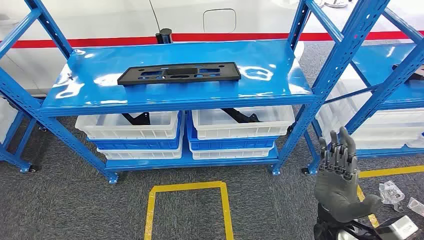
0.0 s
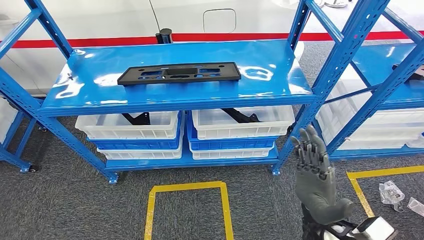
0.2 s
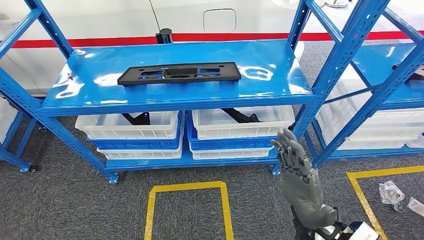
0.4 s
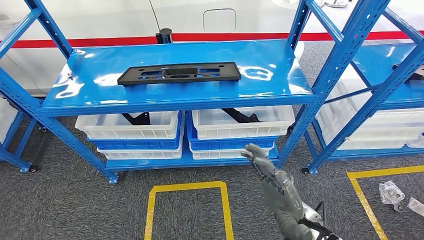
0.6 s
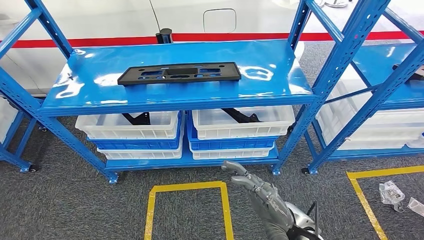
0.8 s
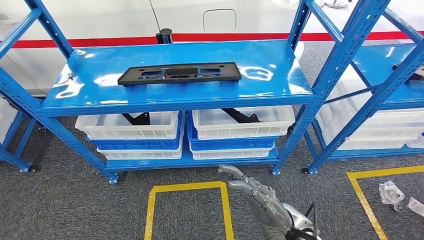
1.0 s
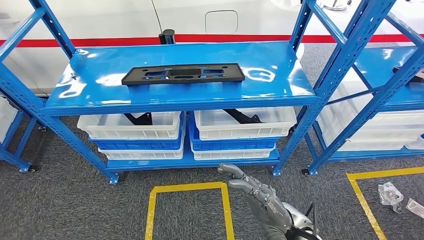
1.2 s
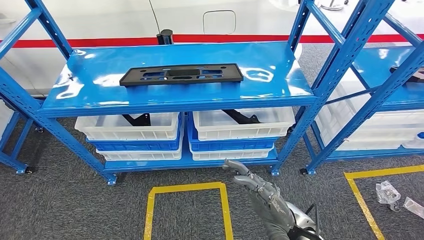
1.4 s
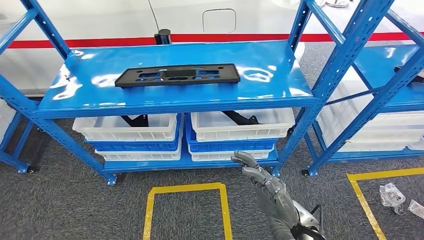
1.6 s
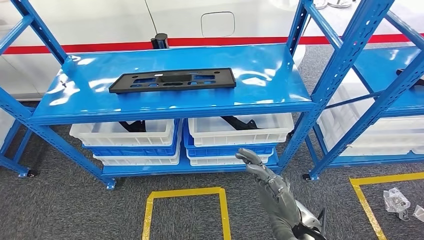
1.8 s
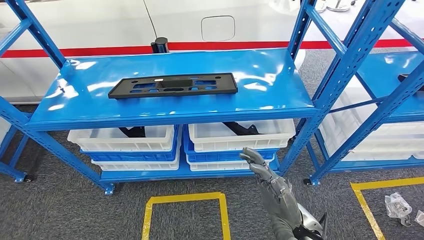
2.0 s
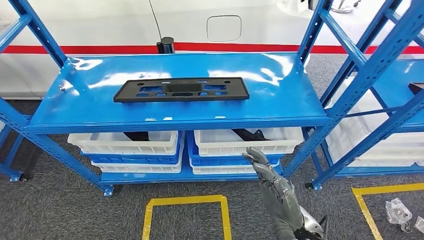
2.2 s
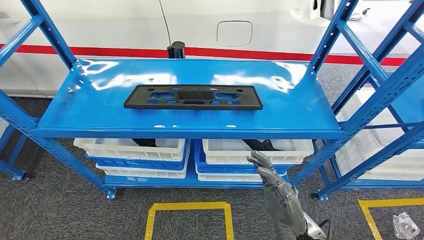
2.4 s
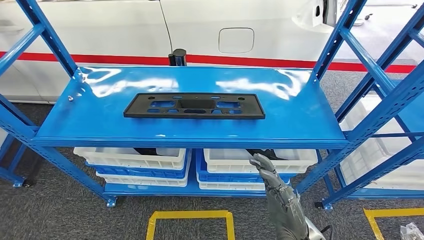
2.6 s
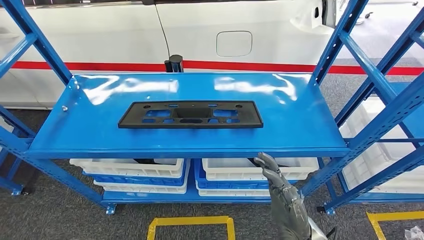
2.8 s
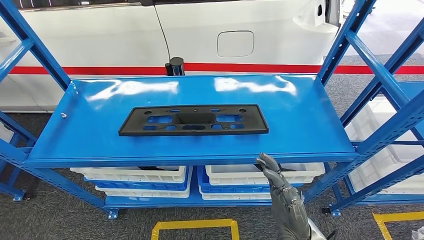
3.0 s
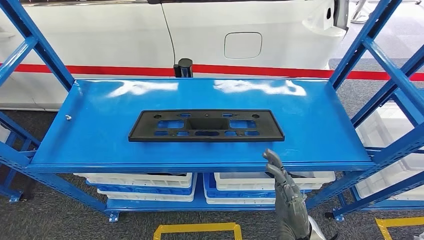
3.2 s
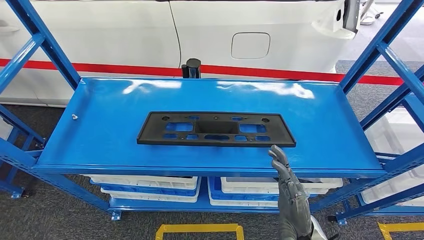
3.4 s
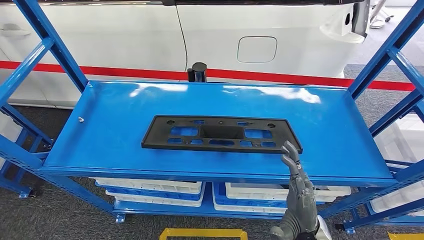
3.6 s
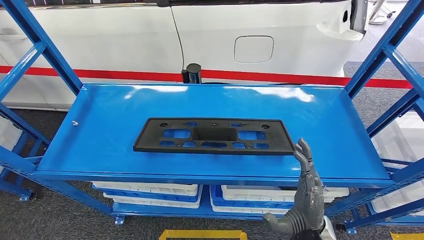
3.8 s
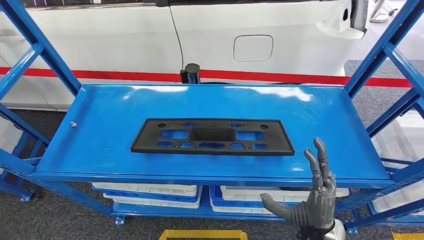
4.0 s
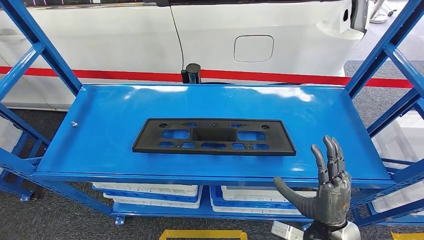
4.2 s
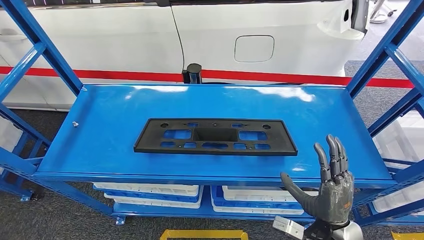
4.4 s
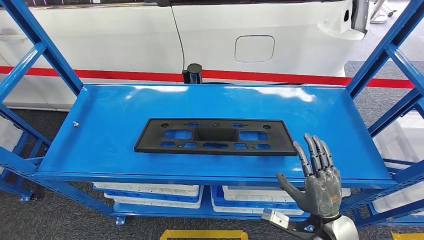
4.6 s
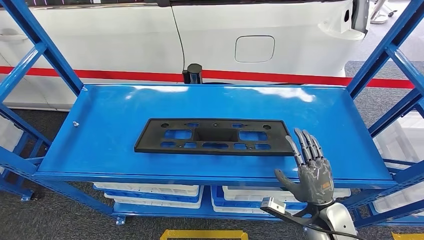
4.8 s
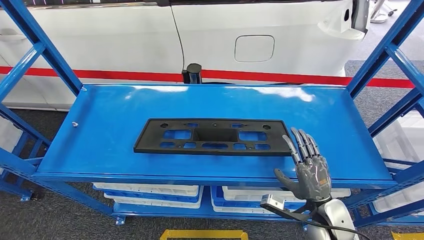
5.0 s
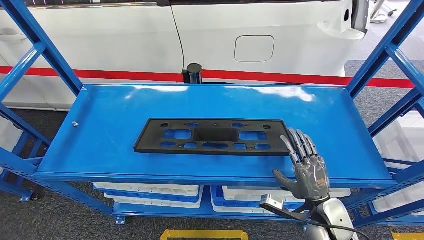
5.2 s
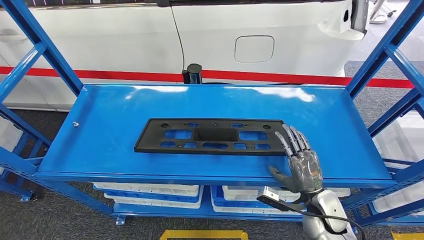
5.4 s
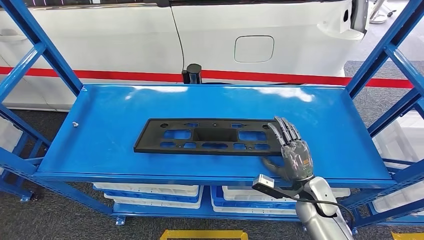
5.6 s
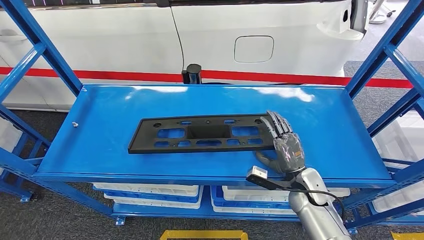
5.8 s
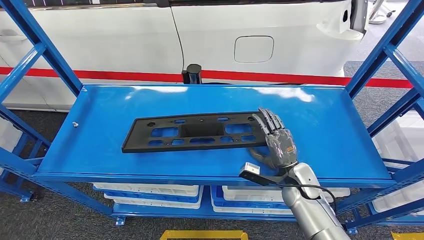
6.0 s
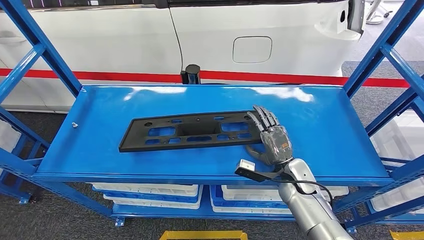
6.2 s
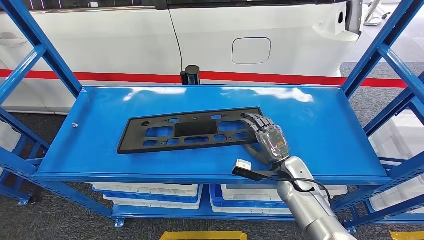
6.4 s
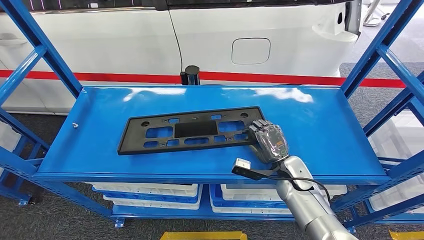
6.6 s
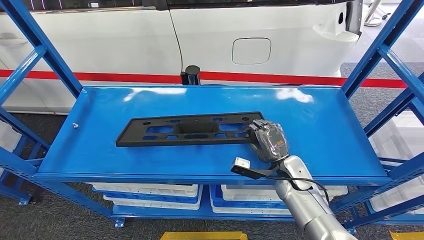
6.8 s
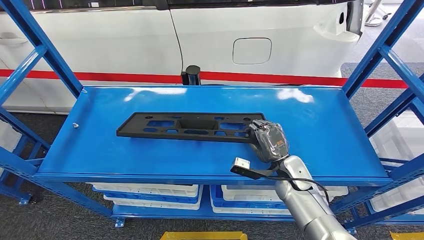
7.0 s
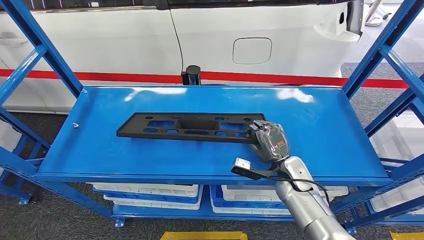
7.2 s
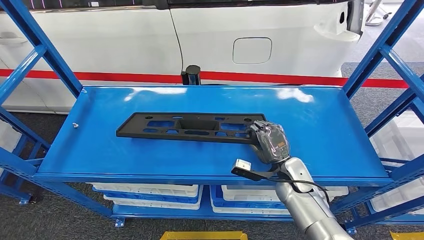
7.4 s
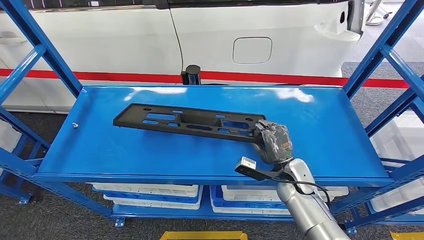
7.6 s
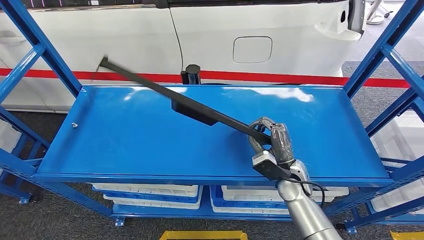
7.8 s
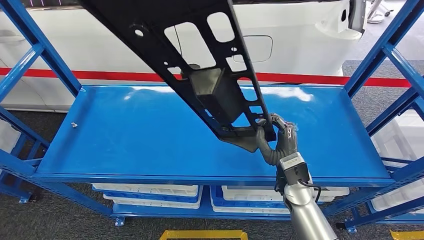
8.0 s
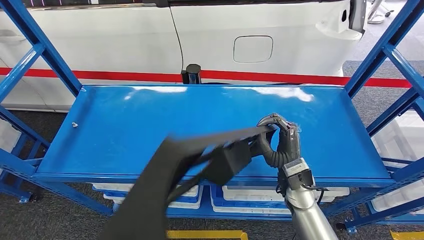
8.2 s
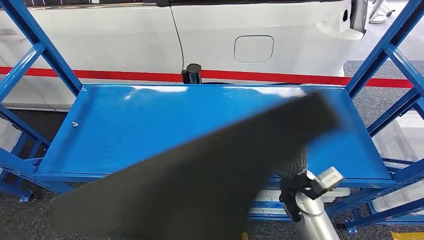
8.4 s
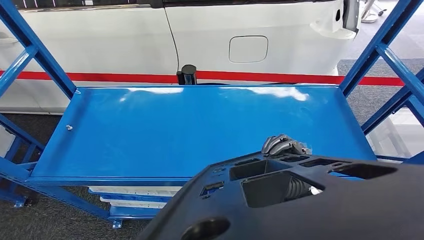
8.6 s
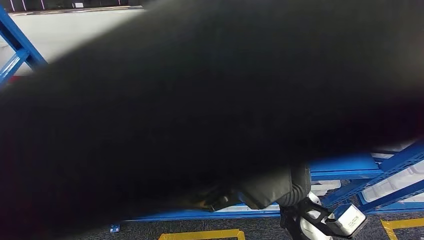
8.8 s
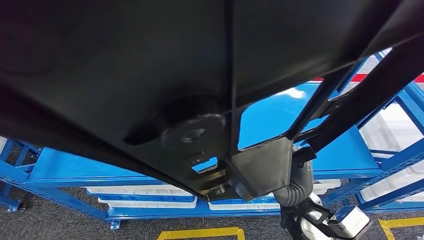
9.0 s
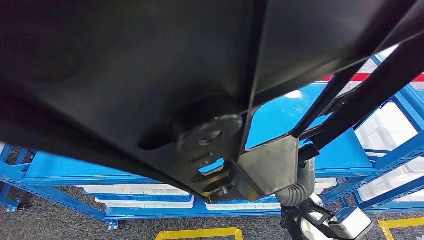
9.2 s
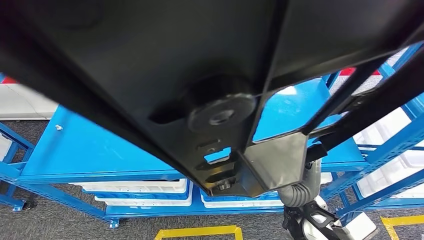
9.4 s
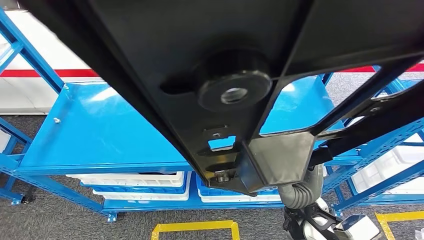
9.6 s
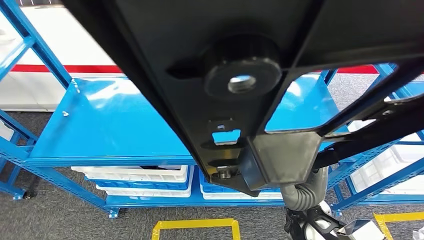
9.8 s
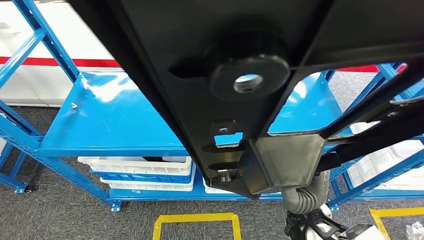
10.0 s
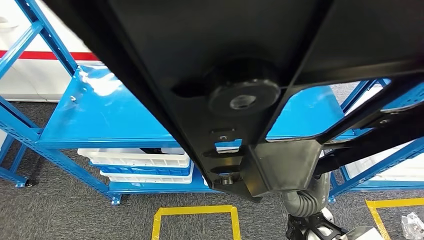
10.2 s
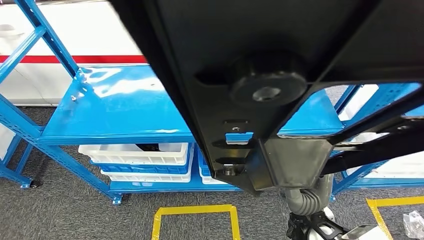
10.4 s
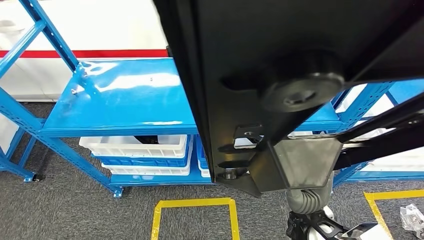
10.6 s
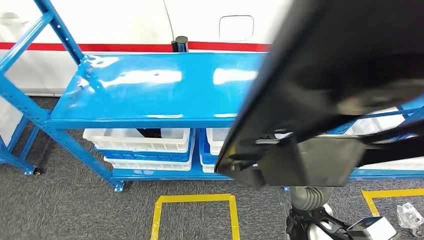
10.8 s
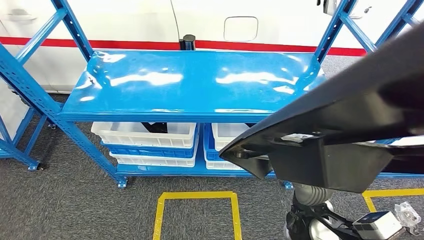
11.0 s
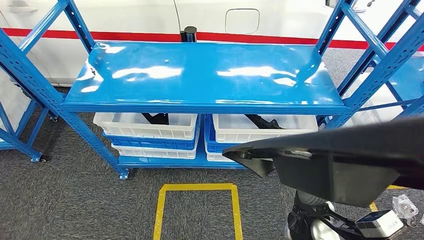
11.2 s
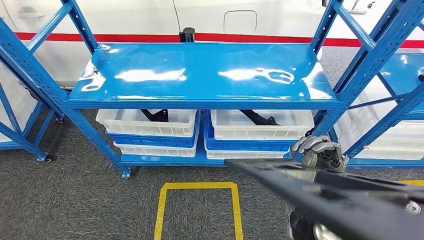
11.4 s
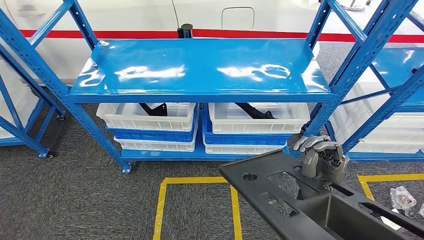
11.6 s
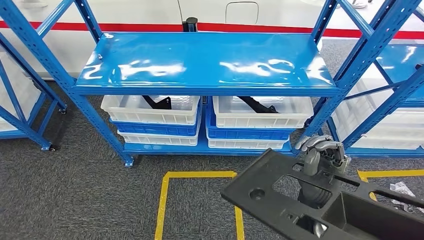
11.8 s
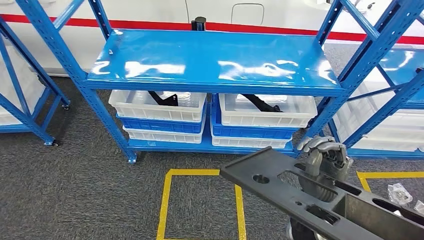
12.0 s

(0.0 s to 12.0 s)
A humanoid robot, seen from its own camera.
Step, 0.0 s - 7.8 s: Pick up the large material from the shelf.
4.4 s - 6.0 s: The right hand travels forward by approximately 15 cm.
6.0 s - 7.6 s: The hands move only a little.

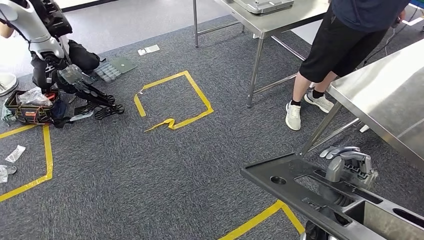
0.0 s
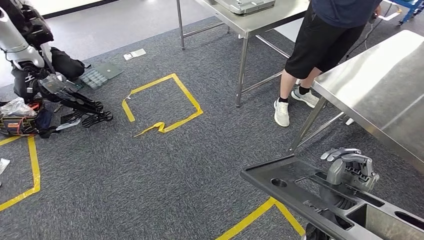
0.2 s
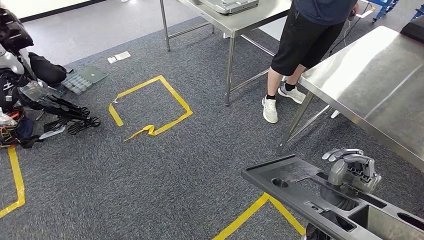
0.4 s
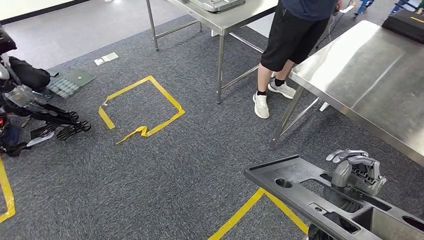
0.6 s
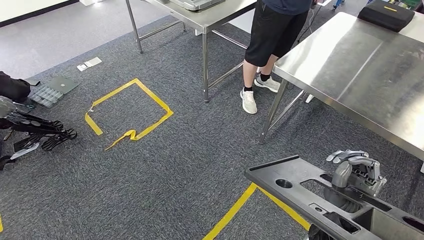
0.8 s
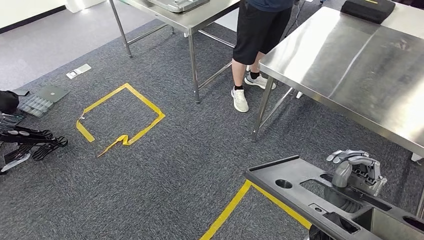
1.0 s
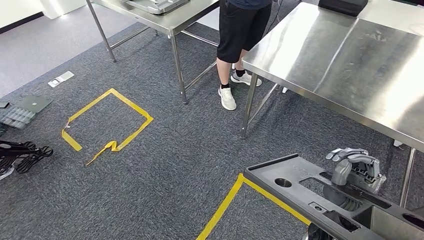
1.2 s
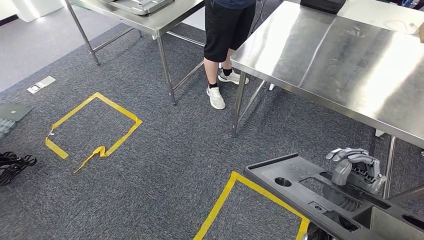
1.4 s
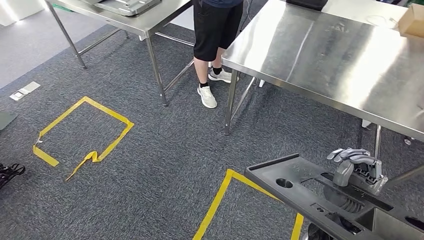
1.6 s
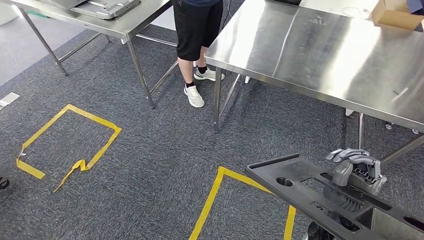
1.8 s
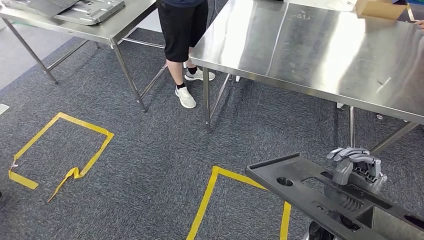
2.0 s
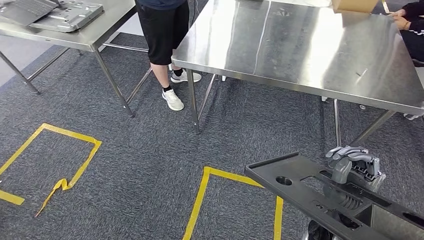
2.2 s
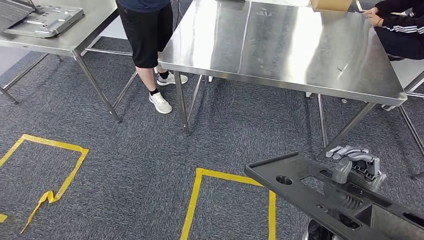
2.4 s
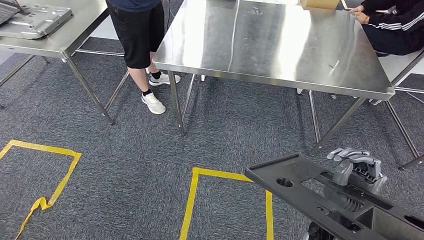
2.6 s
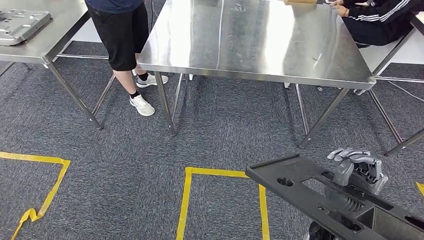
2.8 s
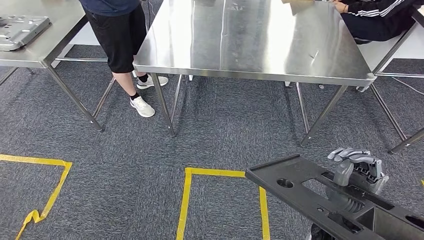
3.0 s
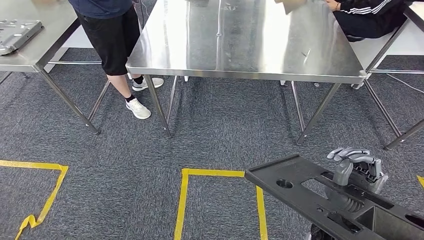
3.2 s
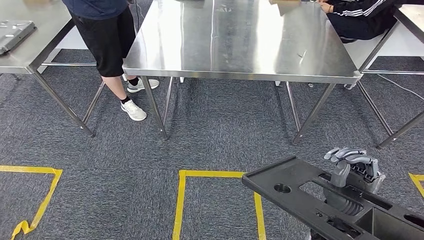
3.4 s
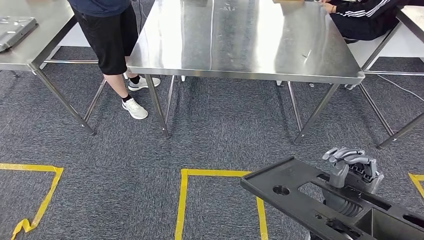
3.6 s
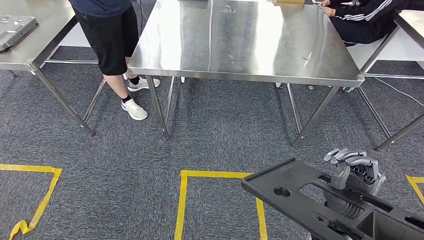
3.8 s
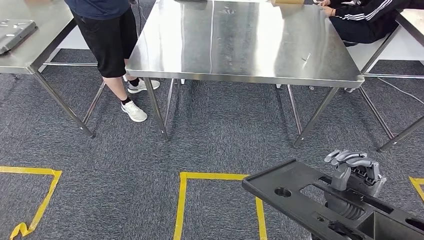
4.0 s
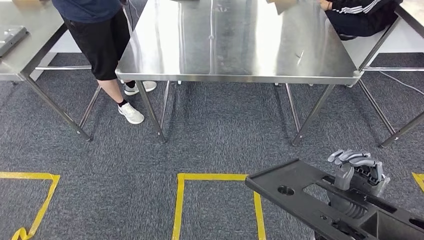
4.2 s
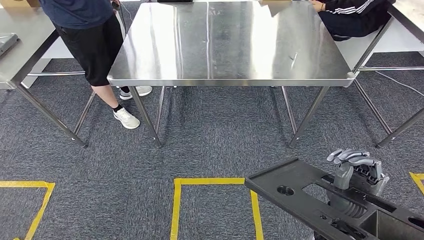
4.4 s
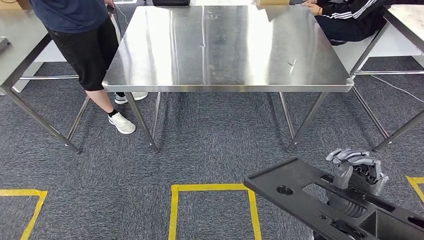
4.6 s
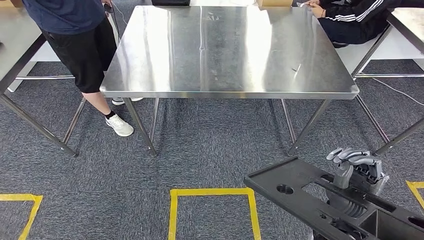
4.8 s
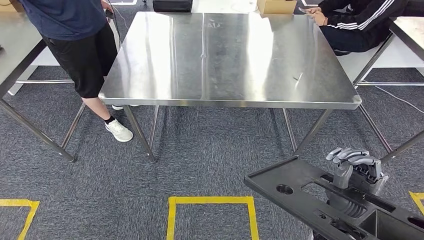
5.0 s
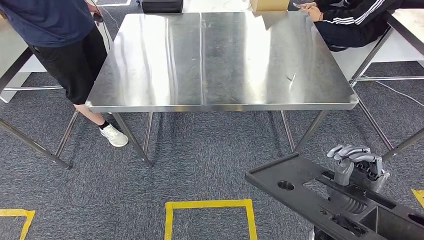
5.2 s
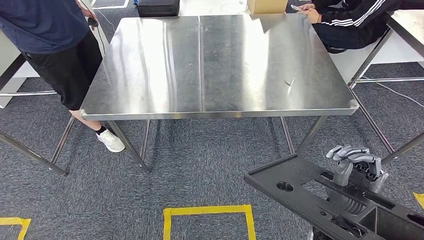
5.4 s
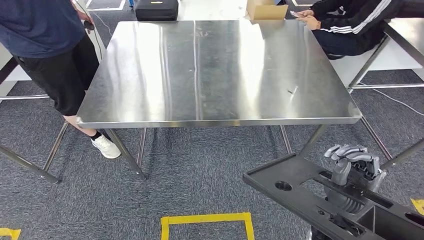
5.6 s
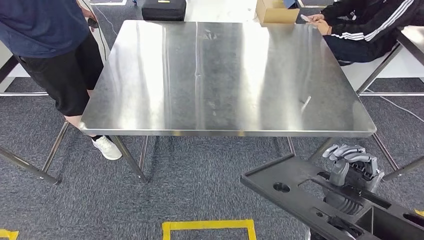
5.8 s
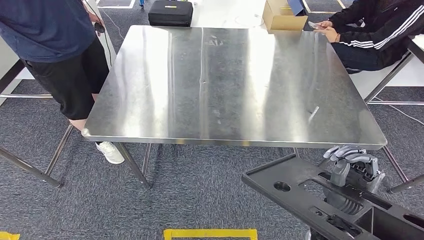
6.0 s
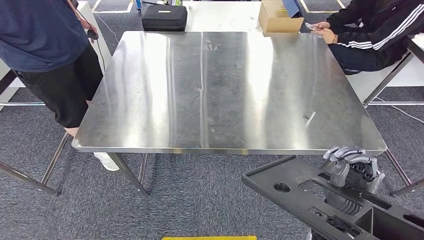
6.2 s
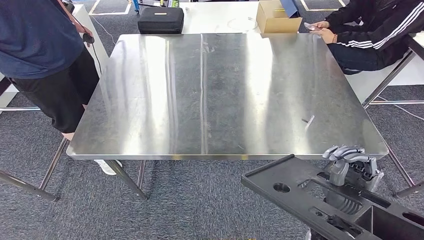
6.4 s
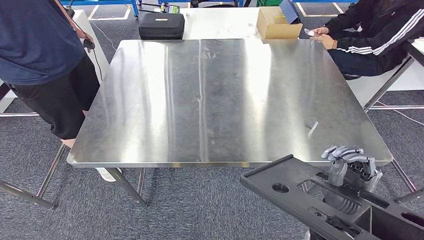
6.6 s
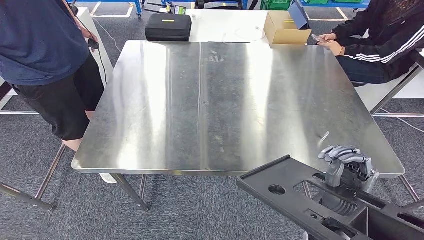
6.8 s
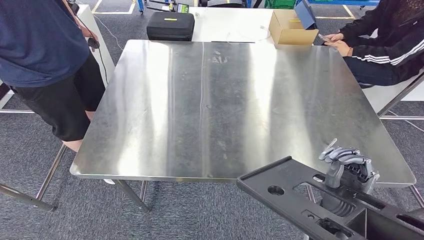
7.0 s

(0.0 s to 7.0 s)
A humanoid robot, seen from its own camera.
Step, 0.0 s - 6.6 s: Move the large material to the front of the workbench.
